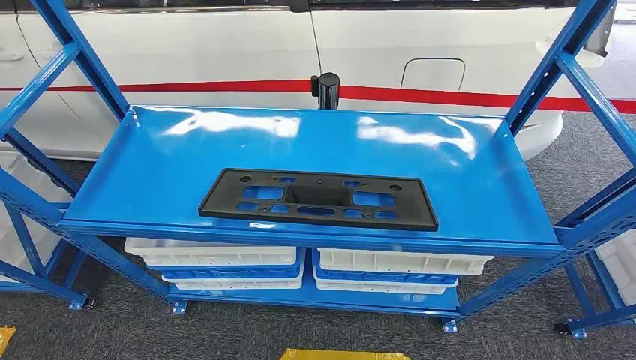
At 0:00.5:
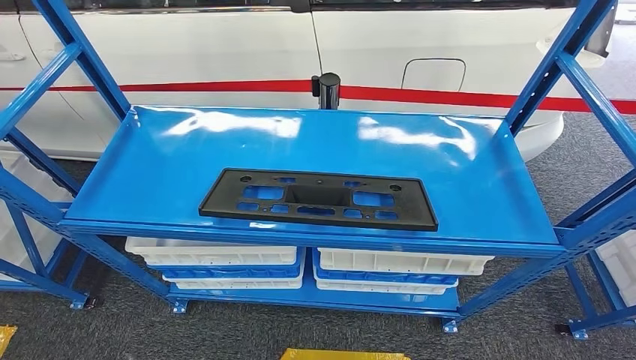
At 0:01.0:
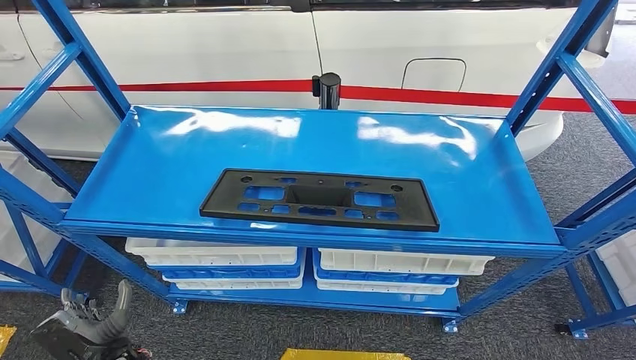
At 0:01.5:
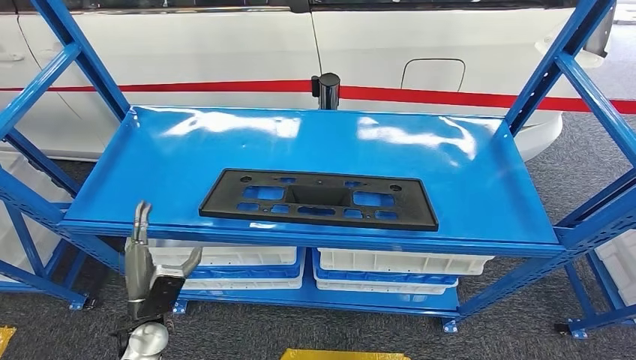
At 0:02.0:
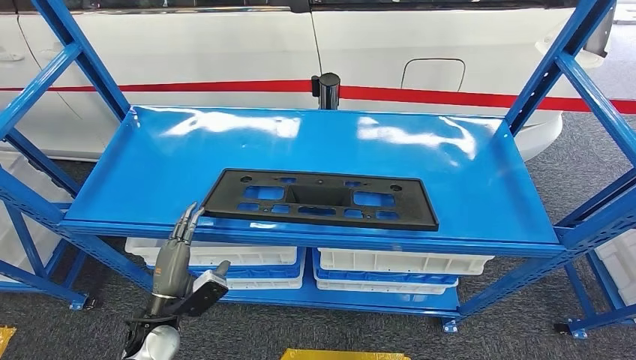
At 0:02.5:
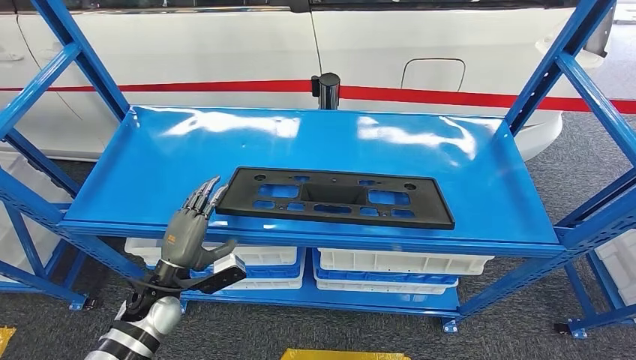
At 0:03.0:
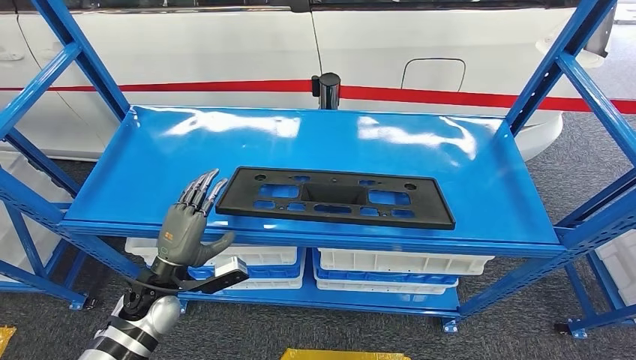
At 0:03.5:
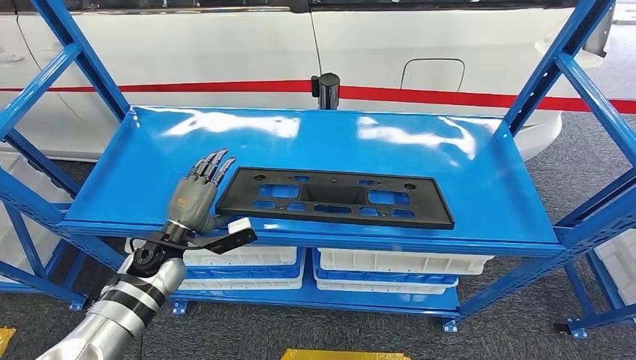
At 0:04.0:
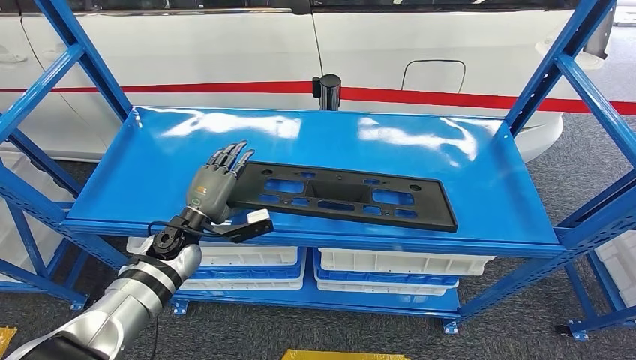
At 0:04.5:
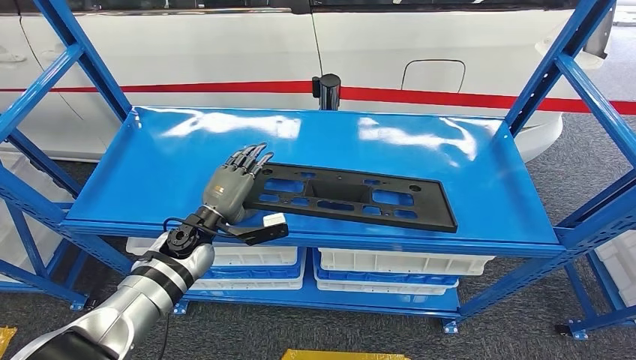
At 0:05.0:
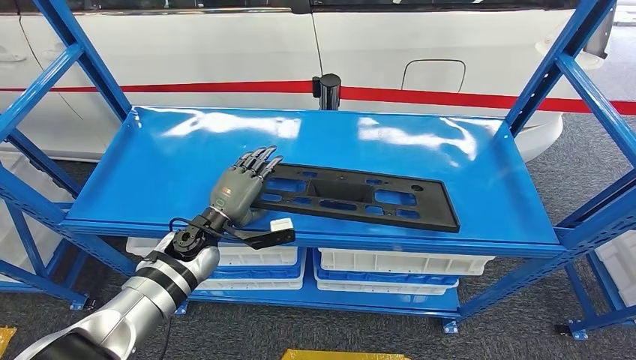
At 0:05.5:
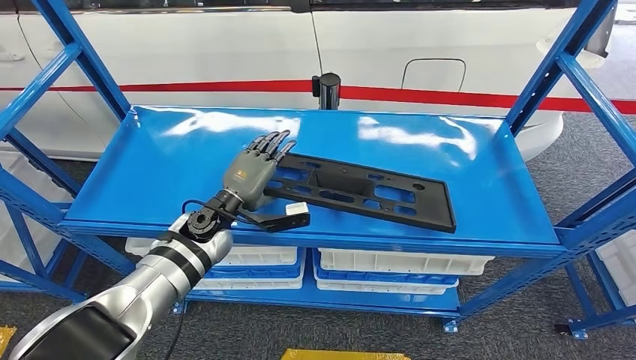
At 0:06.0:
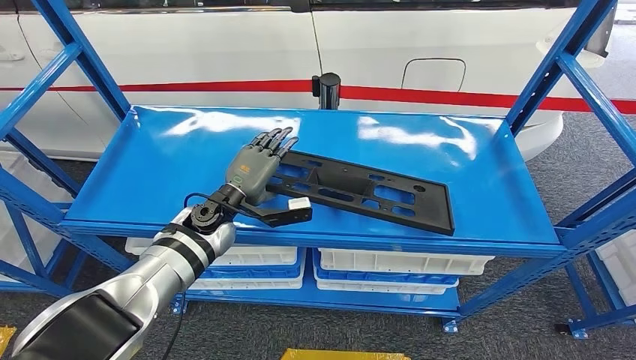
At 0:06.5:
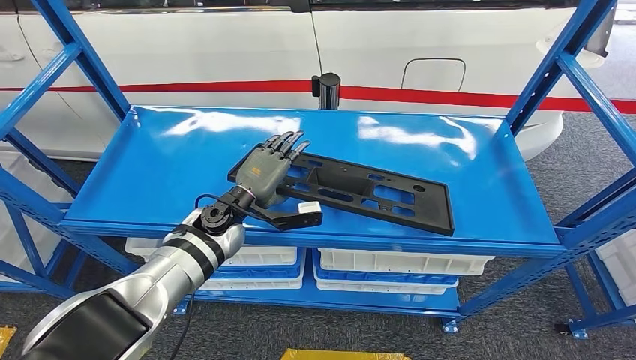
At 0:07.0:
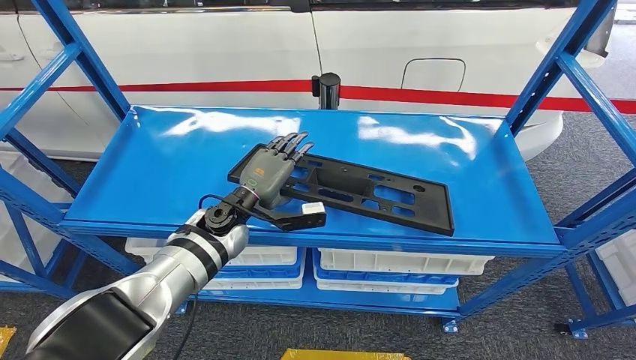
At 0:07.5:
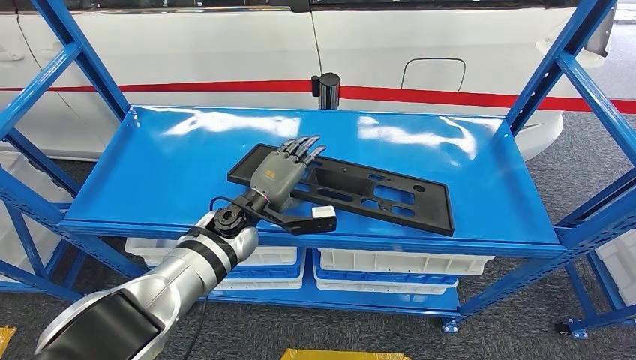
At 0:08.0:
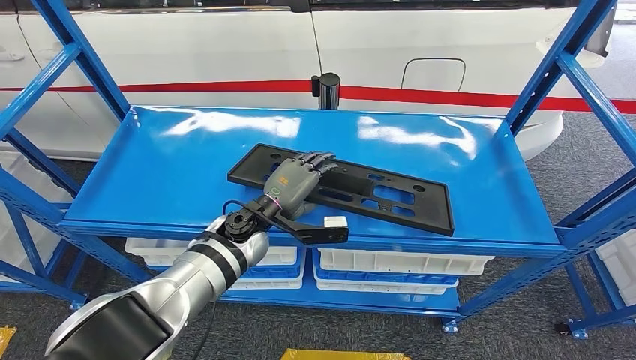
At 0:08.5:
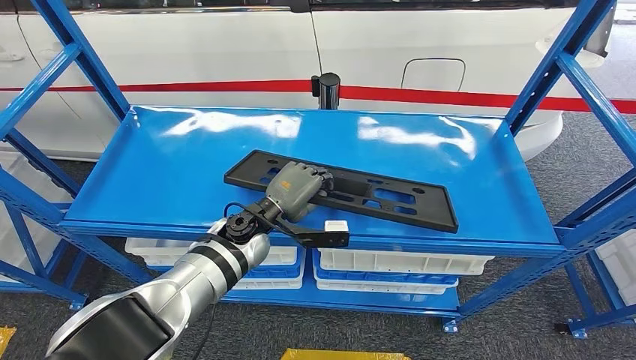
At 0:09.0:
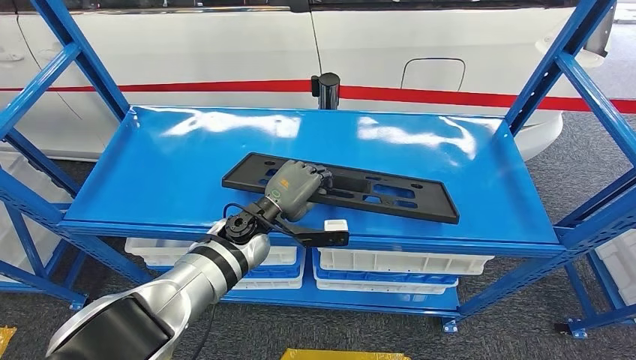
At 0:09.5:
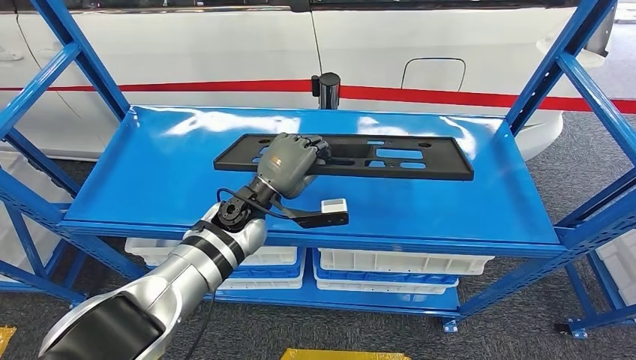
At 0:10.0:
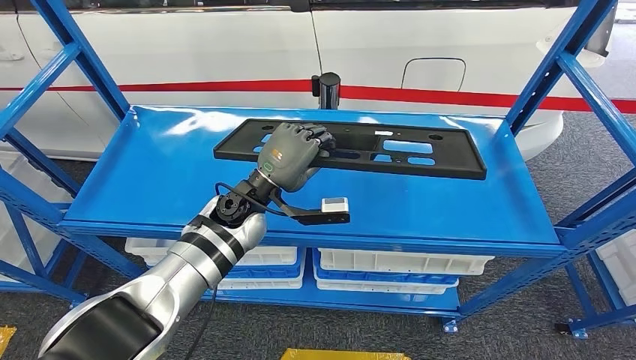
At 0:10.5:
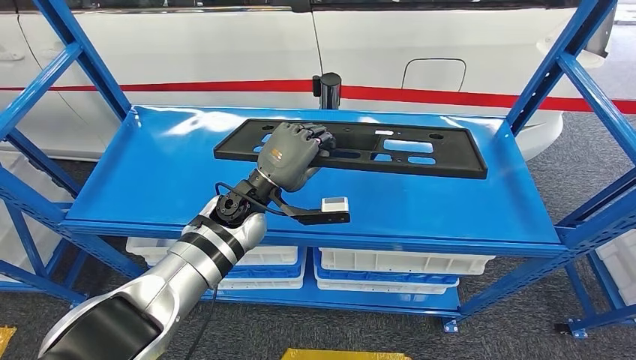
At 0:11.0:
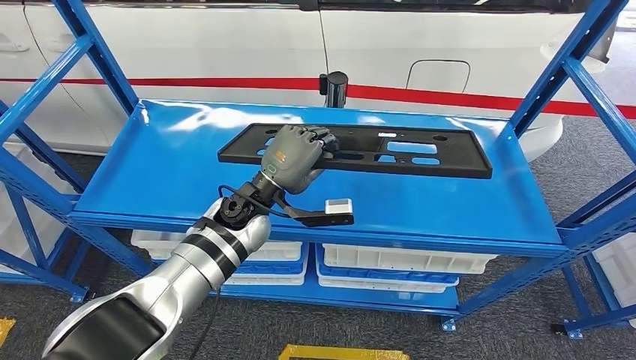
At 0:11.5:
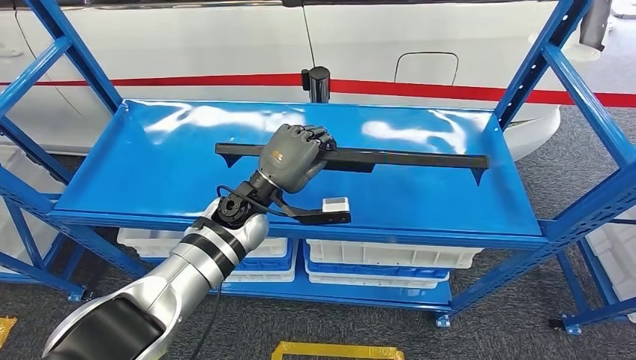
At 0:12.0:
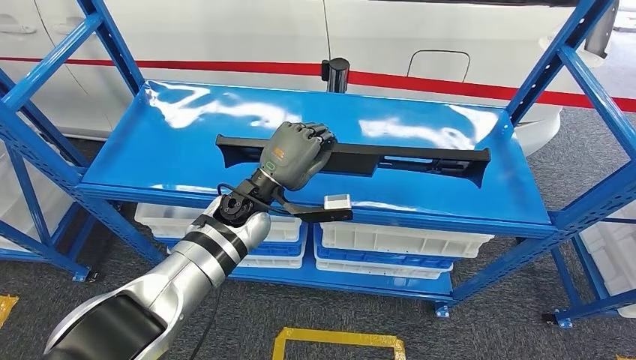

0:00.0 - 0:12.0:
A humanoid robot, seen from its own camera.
0:02.0 - 0:04.0: The left hand shifts some 15 cm forward and upward.
0:04.0 - 0:06.0: The left hand shifts roughly 5 cm to the right.
0:06.0 - 0:08.0: The left hand moves to the right, roughly 5 cm.
0:08.0 - 0:10.0: The left hand travels upward by approximately 5 cm.

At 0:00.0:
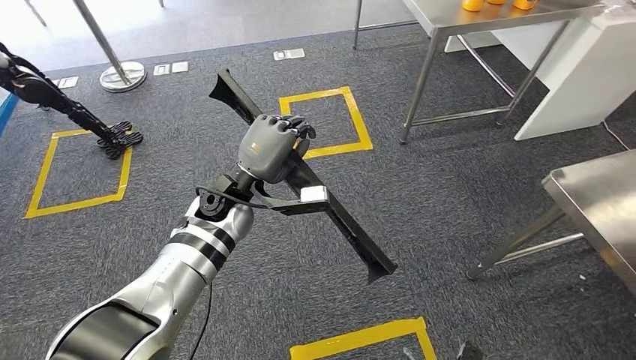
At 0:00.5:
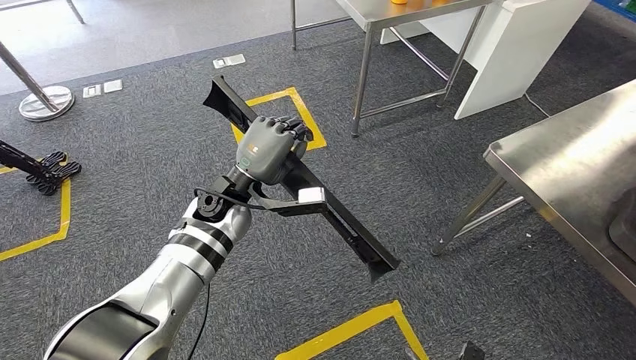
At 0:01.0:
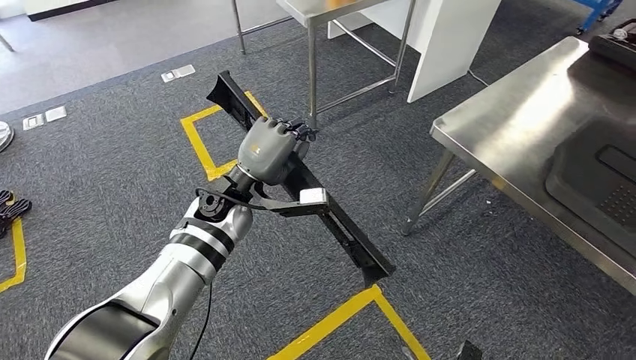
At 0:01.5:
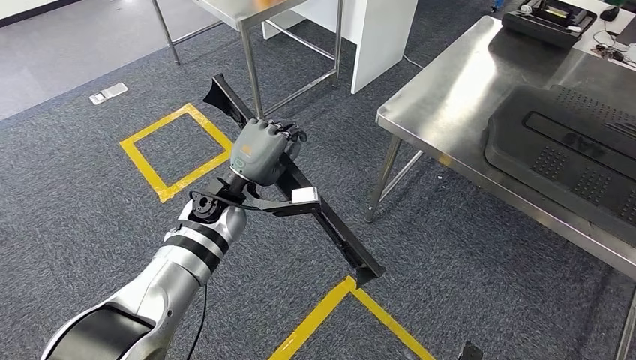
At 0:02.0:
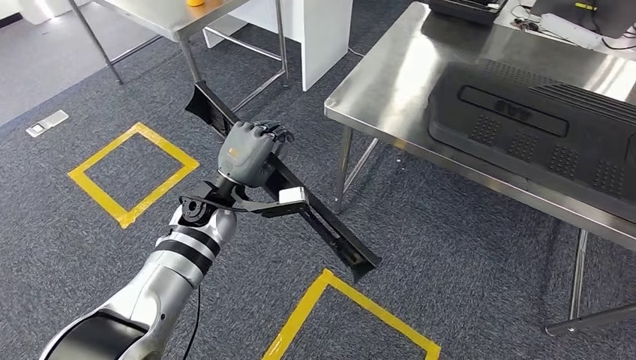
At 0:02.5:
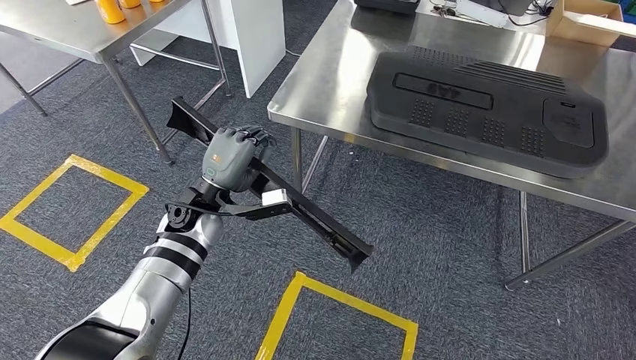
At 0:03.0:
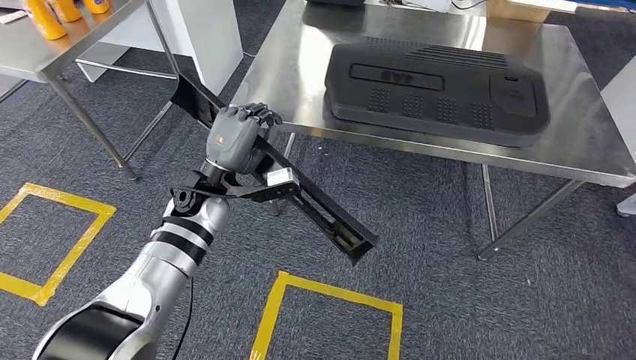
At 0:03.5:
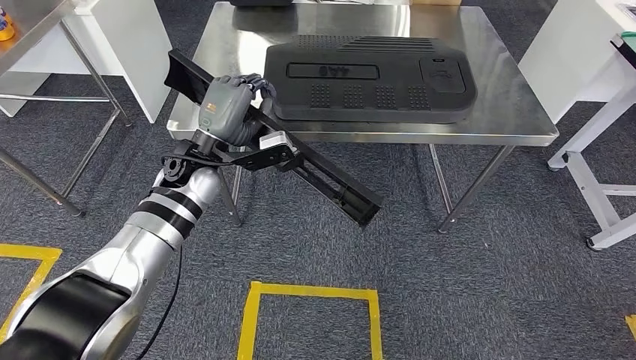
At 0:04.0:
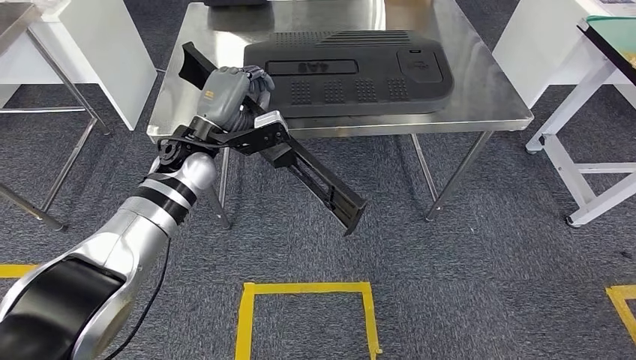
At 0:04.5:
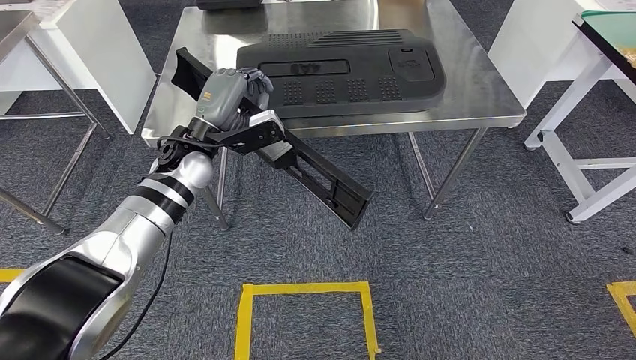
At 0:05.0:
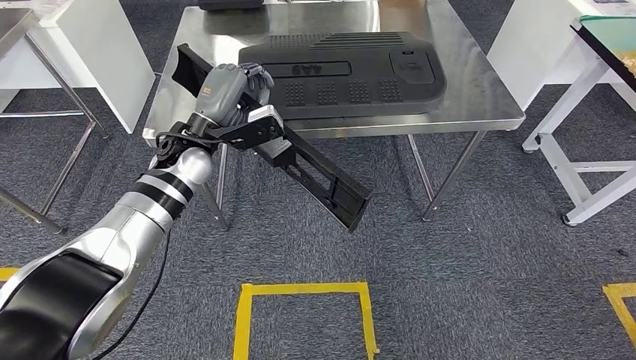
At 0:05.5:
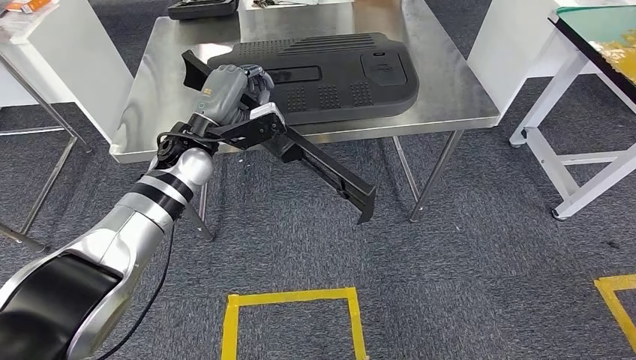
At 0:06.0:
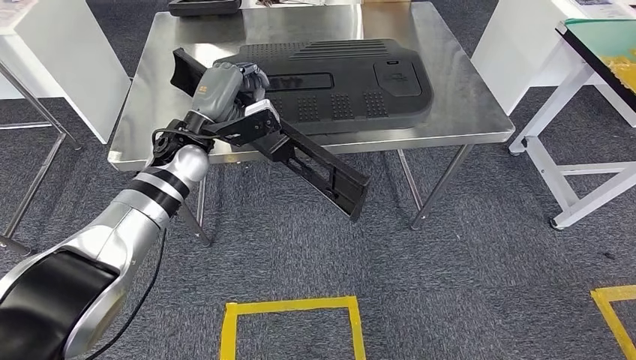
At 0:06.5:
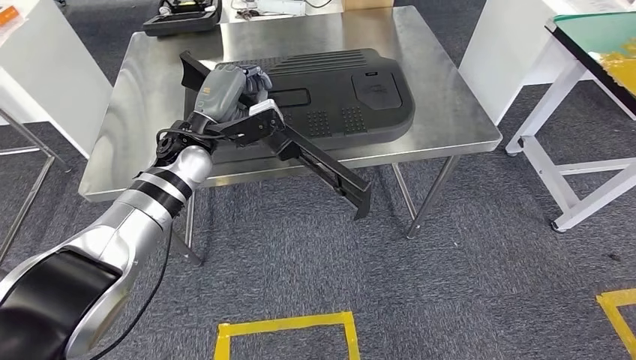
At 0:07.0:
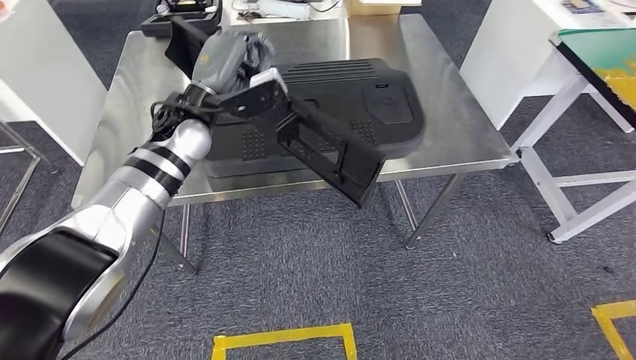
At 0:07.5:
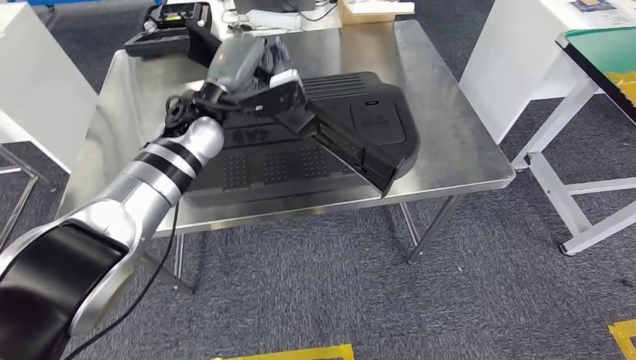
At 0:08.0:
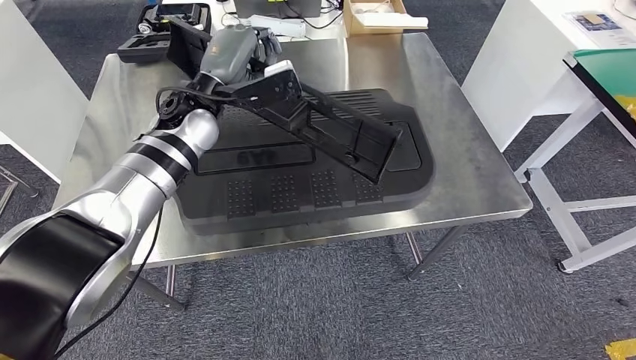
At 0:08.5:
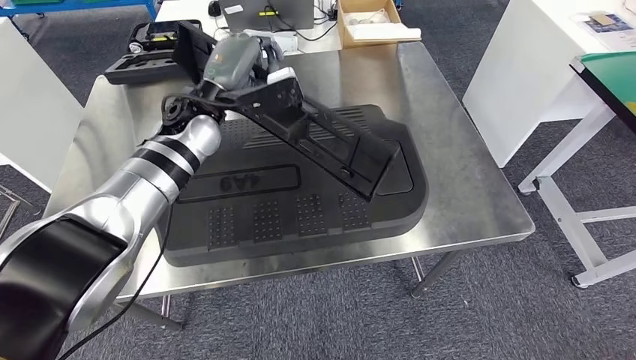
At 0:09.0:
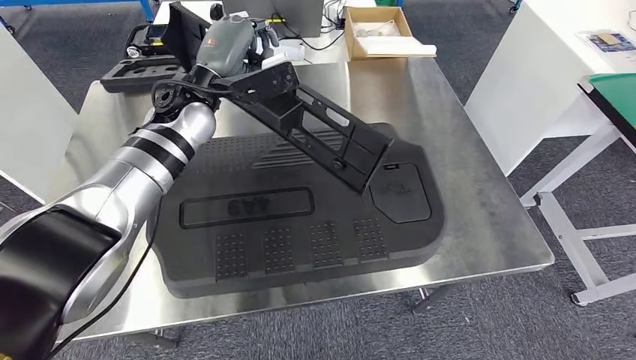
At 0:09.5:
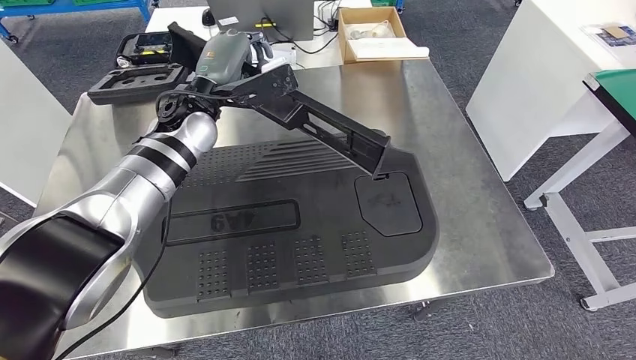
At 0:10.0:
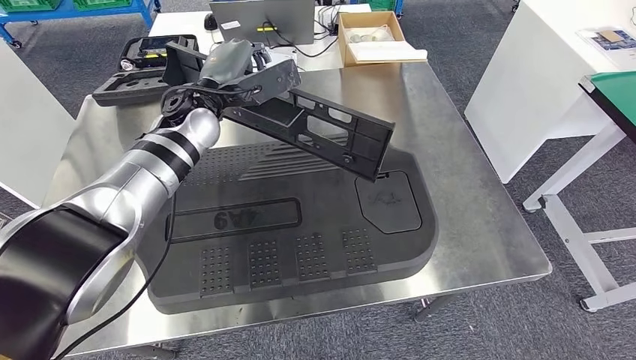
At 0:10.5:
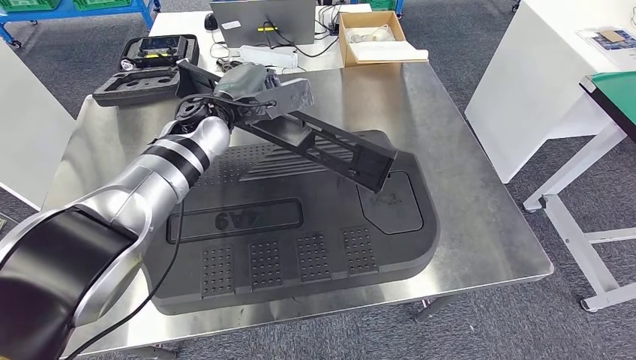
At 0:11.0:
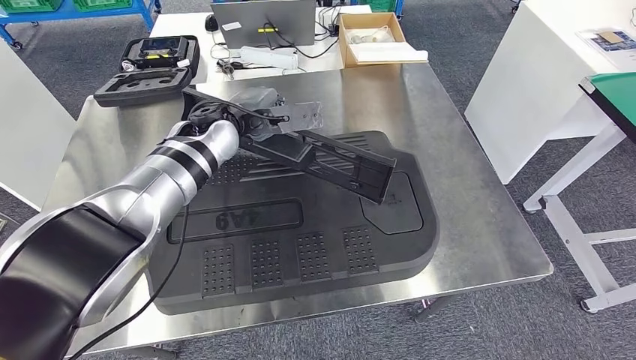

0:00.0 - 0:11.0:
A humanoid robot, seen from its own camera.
Step, 0:00.0 - 0:05.5: Move the large material to the workbench.
